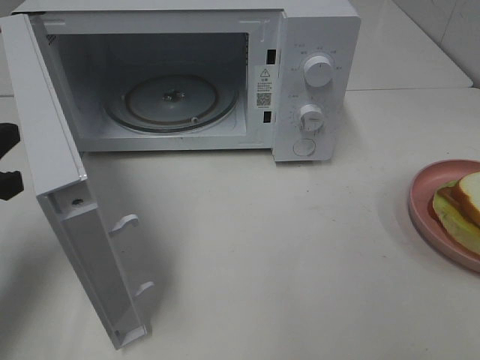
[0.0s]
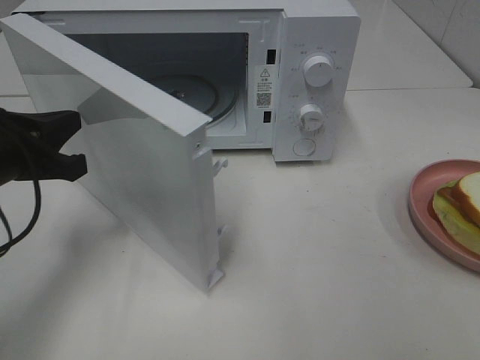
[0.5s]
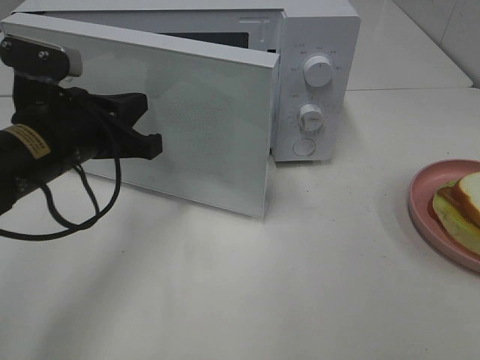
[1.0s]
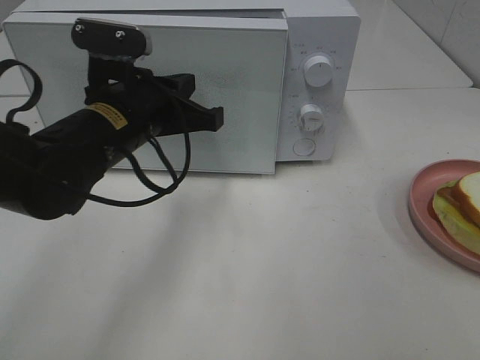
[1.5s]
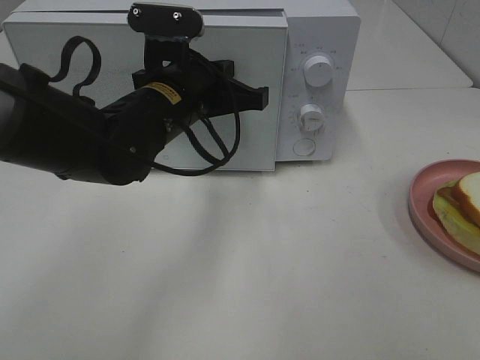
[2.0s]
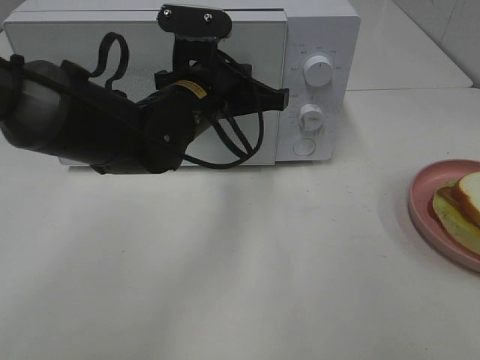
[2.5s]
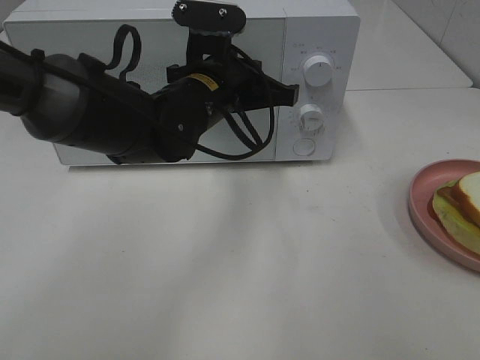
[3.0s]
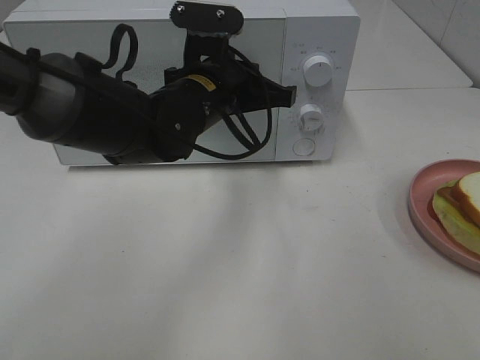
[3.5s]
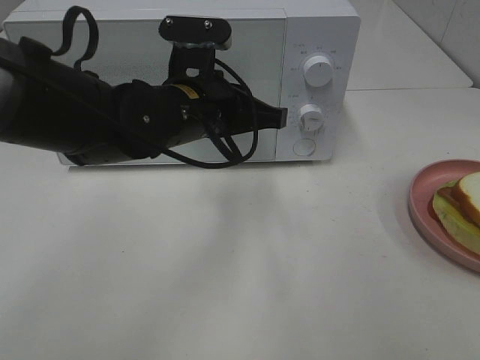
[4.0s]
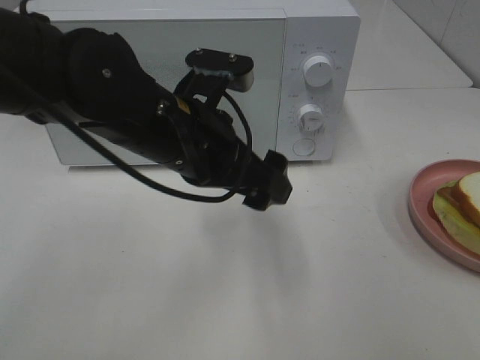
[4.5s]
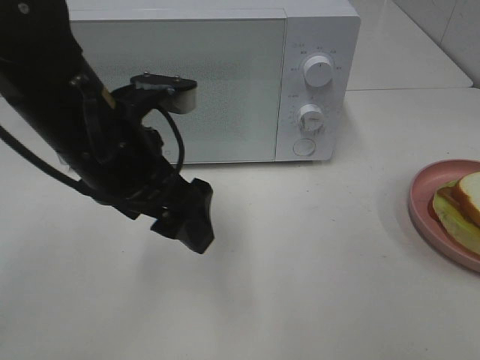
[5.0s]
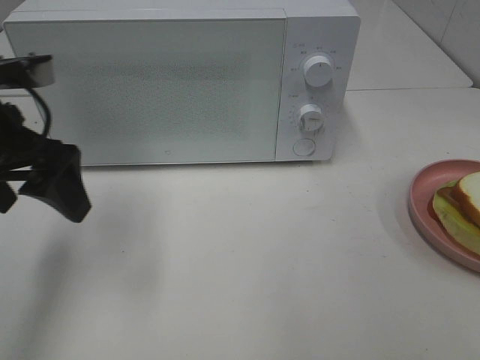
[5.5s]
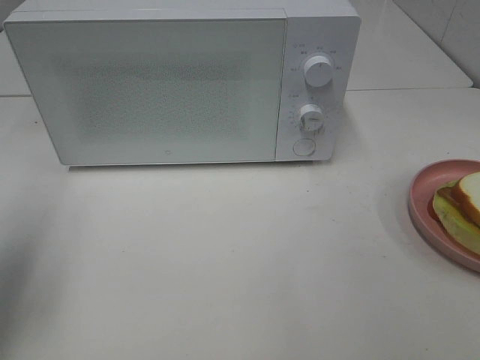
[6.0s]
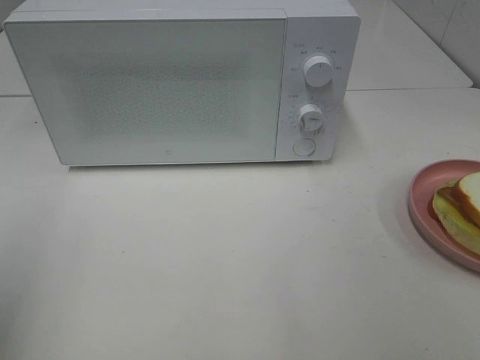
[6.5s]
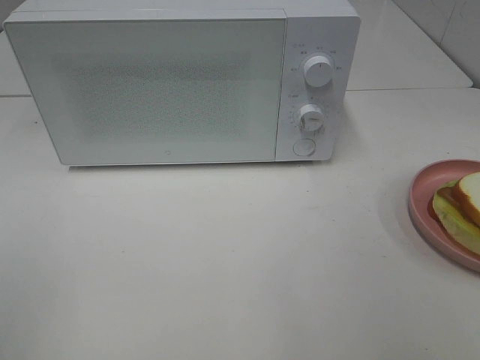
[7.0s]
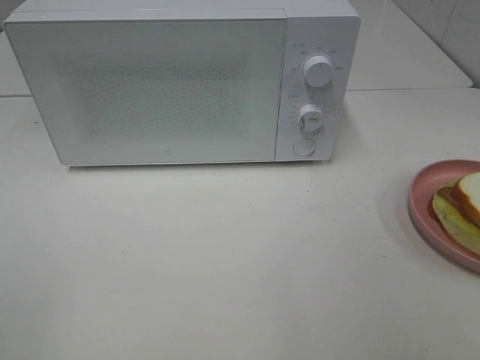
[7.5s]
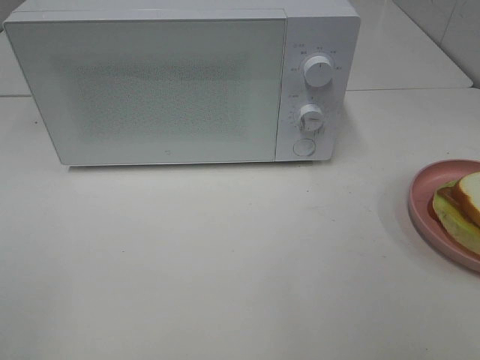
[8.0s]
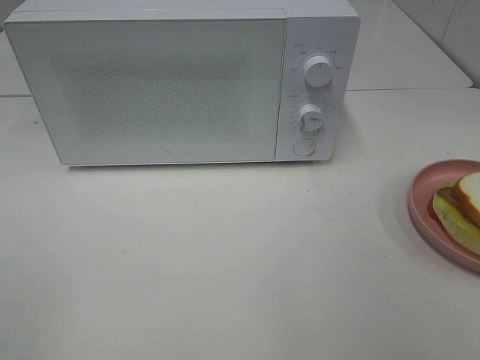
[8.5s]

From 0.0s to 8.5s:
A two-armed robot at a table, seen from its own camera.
Task of the whole recording: Heat Sandwich.
Step, from 0.0s to 3.5s: Left hand: close the microwave door.
From 0.0s to 2.0s: The left gripper is displaced to the right and forward by some 25 cm.
From 2.0s to 4.0s: The grippers stay close to where they were, moving slightly.
From 4.0s to 6.5s: The left gripper travels to the left and backward by about 35 cm, and opens up.

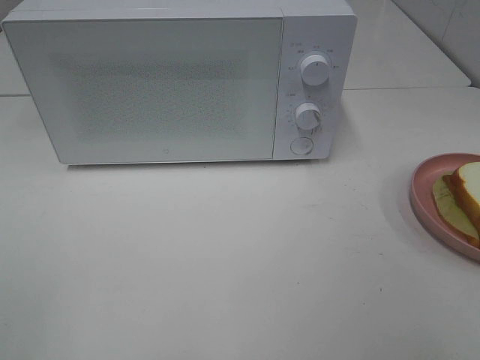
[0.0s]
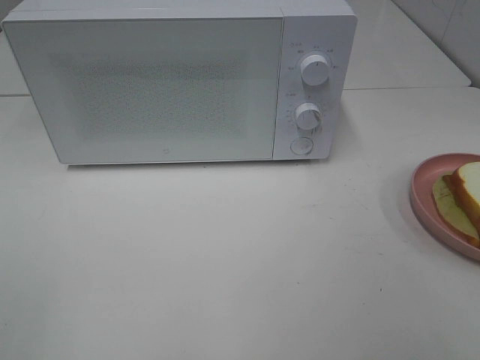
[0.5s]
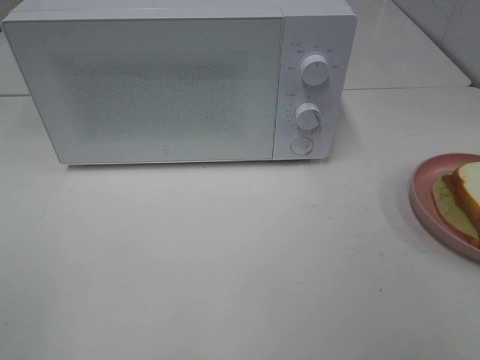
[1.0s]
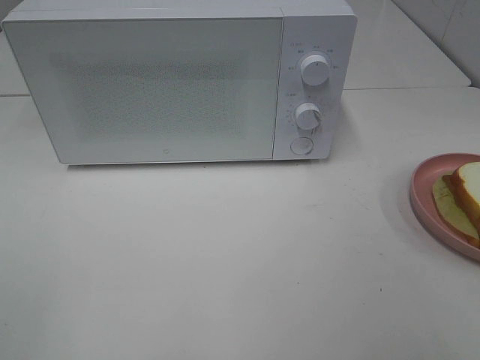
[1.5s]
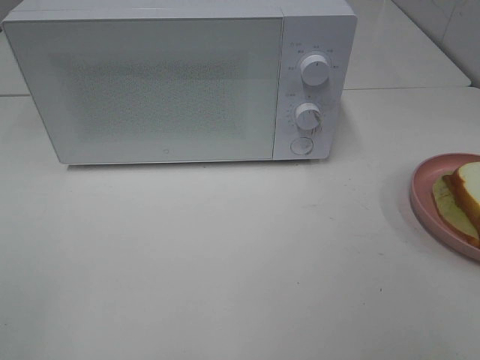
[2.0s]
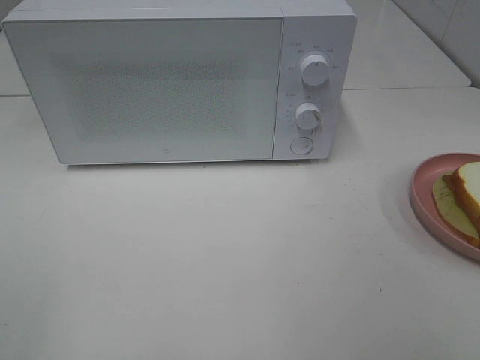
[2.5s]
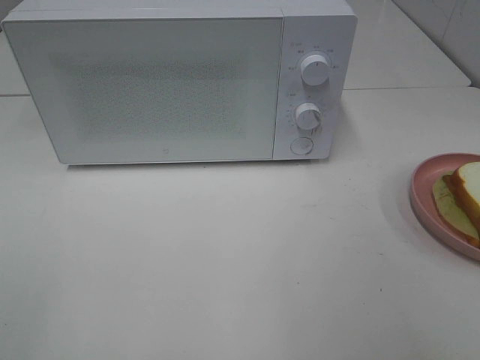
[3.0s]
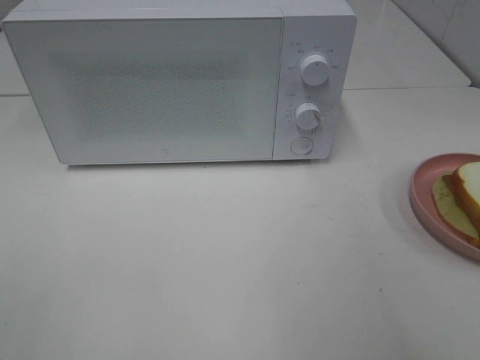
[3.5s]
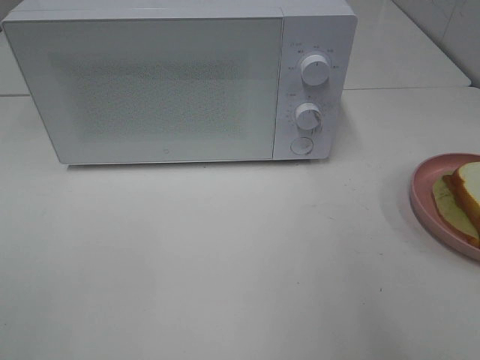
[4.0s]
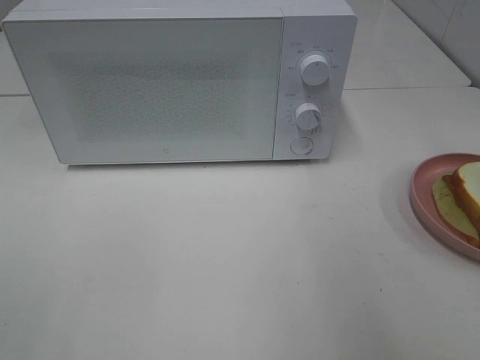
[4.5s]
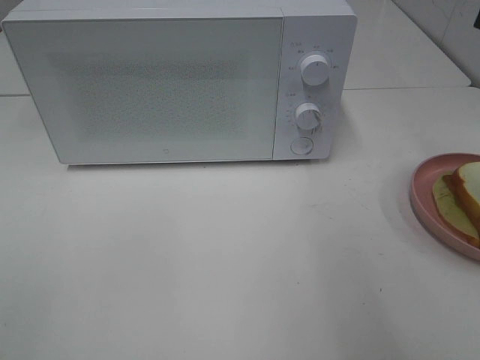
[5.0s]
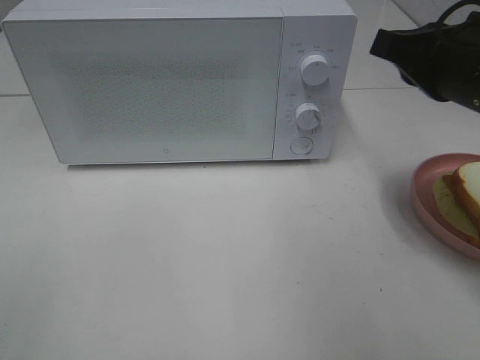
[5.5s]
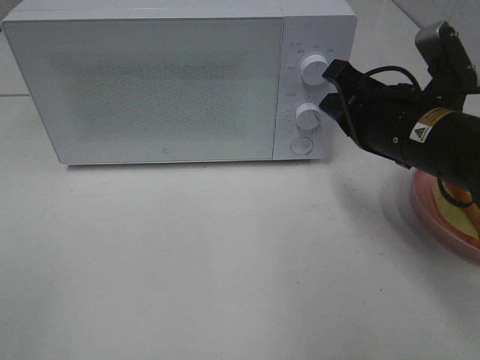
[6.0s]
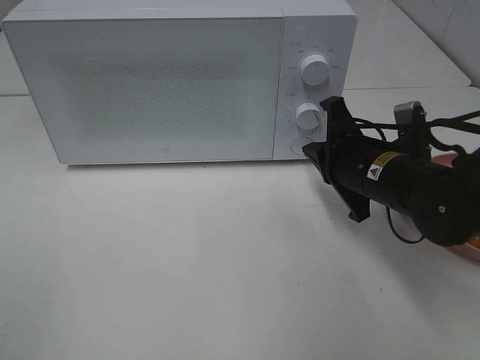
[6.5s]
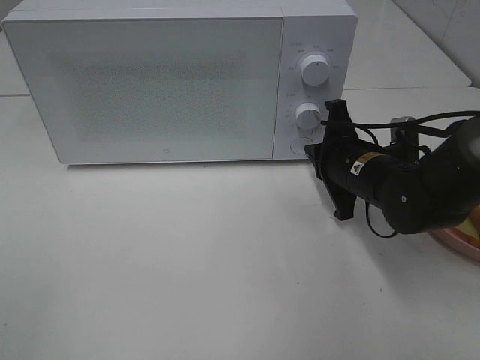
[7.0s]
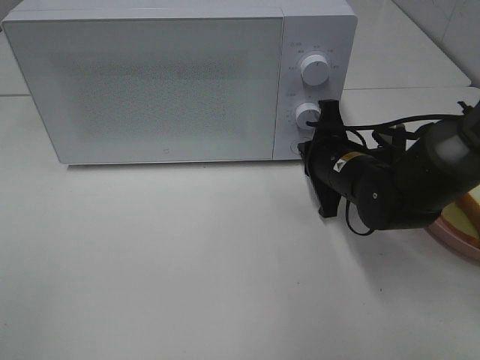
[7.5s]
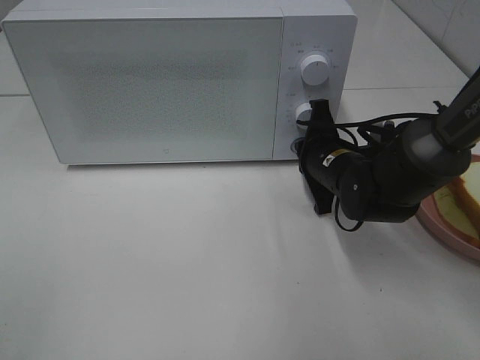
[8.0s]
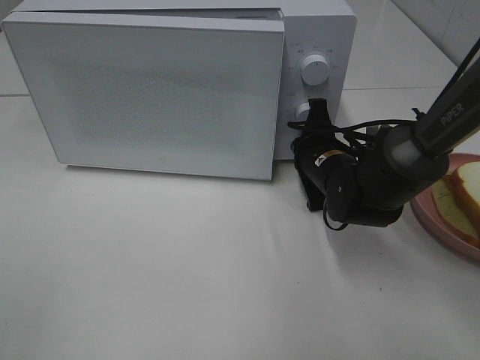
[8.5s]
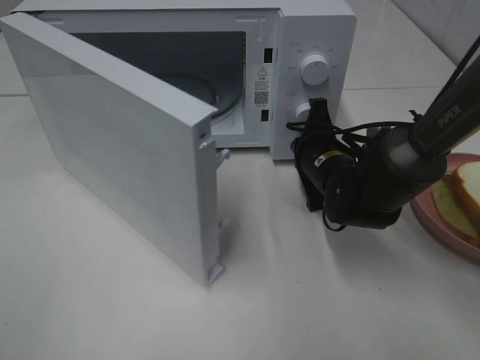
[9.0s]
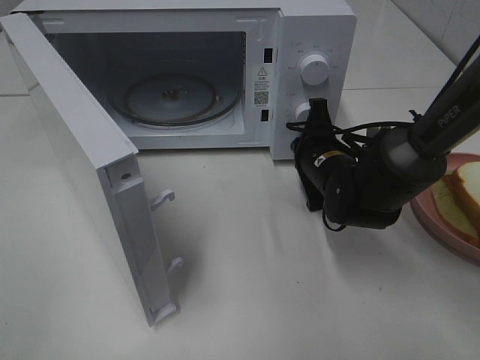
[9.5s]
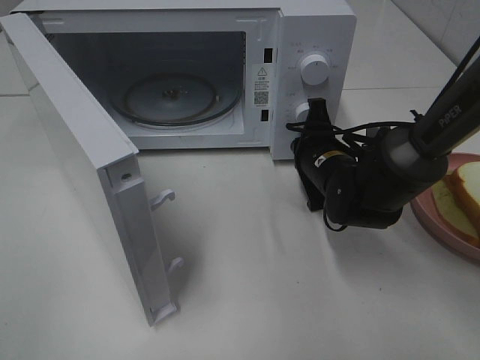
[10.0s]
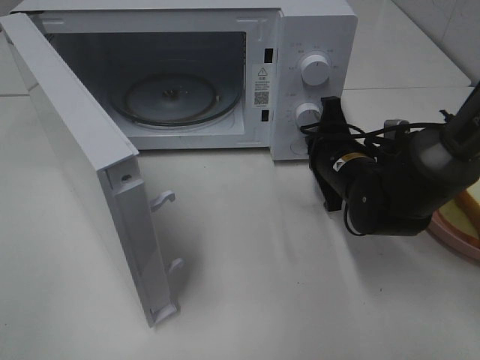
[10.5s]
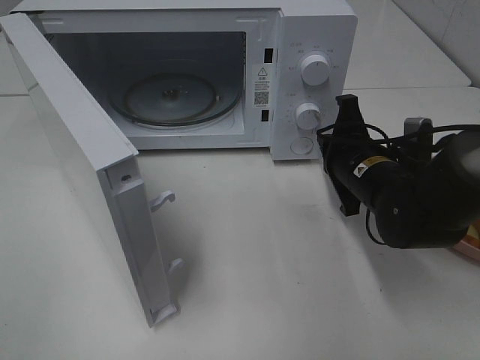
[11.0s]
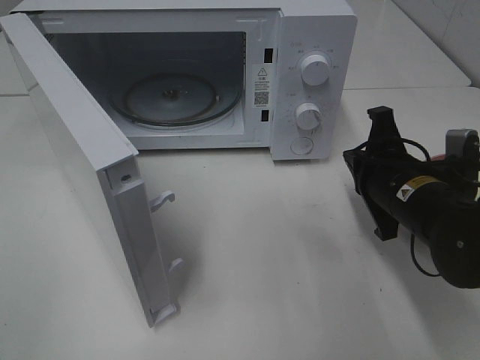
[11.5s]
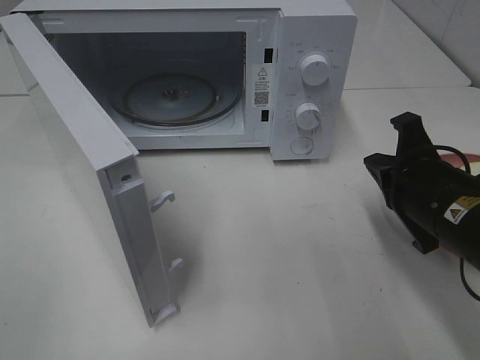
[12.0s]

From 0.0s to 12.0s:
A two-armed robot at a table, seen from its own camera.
Task of the whole recording: Heat Sandwich.
Step, from 0.0s to 10.5s: Right hand: press the switch.
From 0.0s to 2.0s: Both grippers stay put.
From 4.0s to 6.0s: The right gripper heads downward, forward and to the left, covering about 25 cm, and closes.
From 6.0s to 8.0s: The right gripper heads downward and forward, covering roughly 15 cm.
From 10.0s to 12.0s: The right gripper heads backward, to the right and upward, covering about 15 cm.

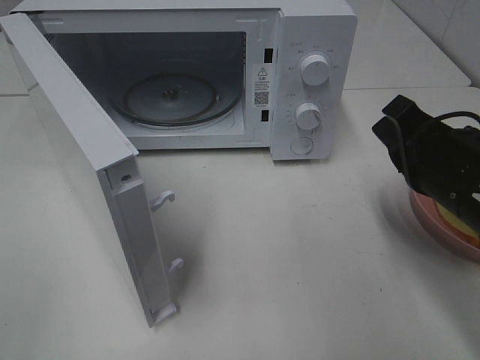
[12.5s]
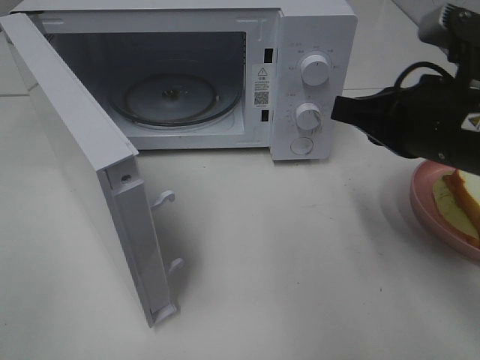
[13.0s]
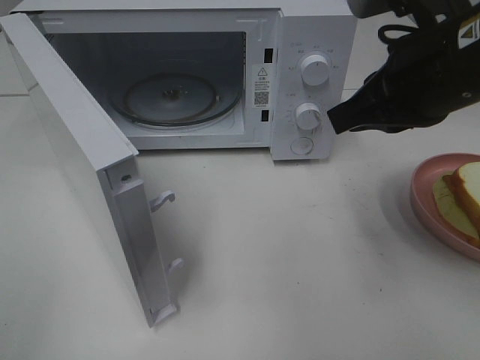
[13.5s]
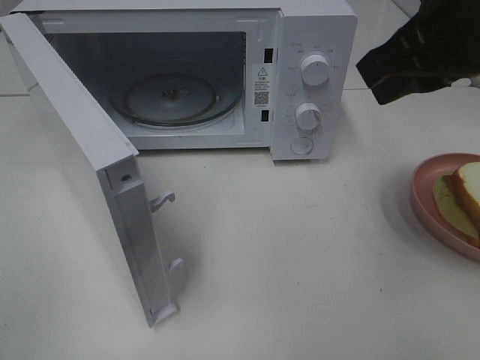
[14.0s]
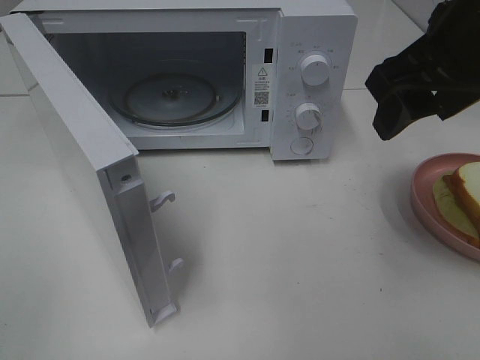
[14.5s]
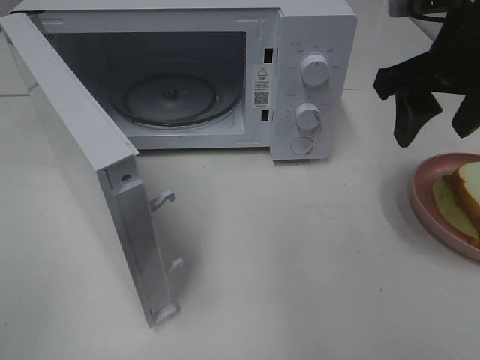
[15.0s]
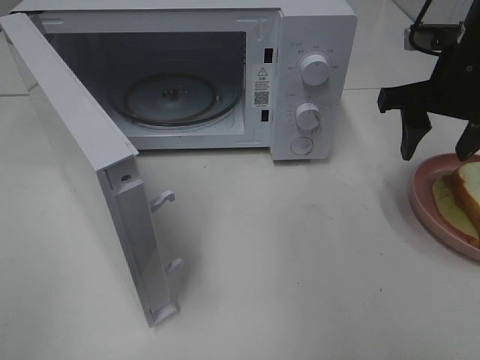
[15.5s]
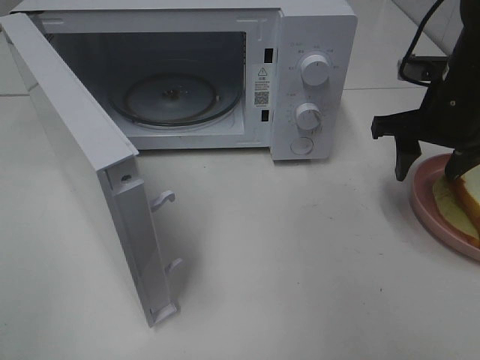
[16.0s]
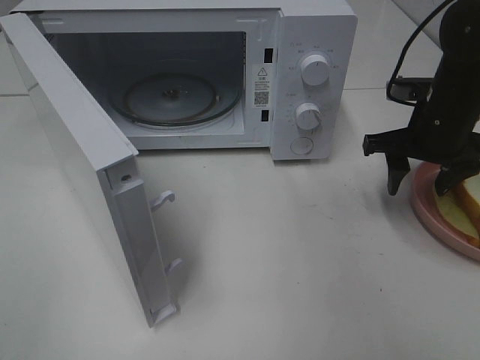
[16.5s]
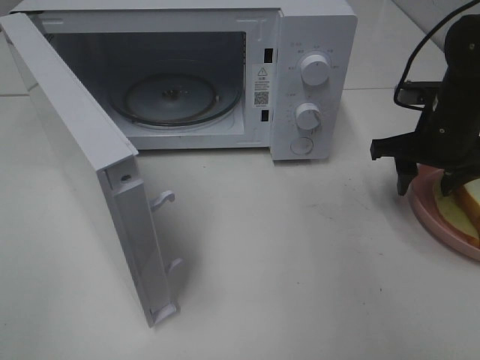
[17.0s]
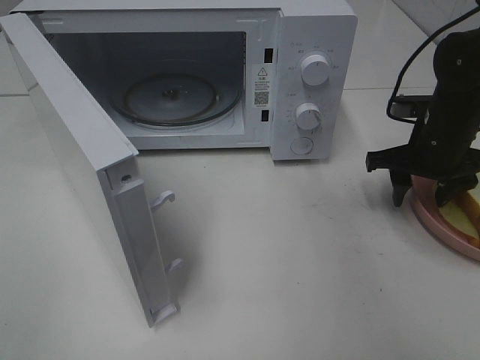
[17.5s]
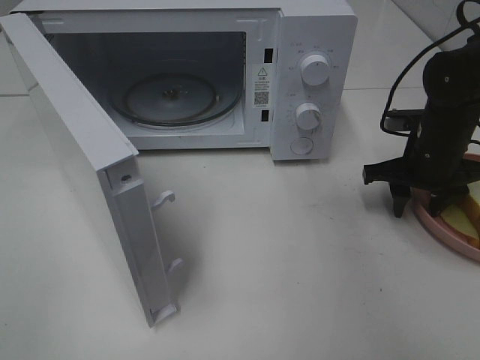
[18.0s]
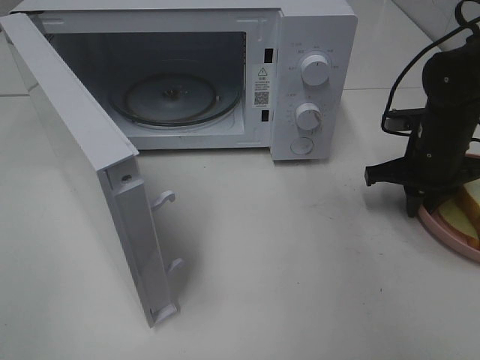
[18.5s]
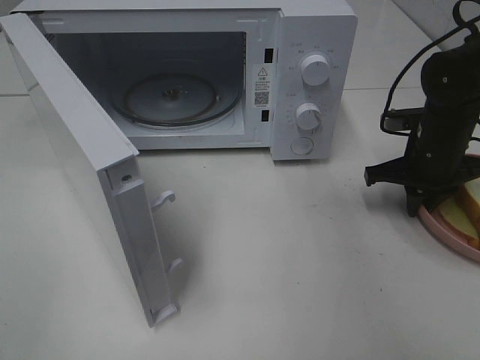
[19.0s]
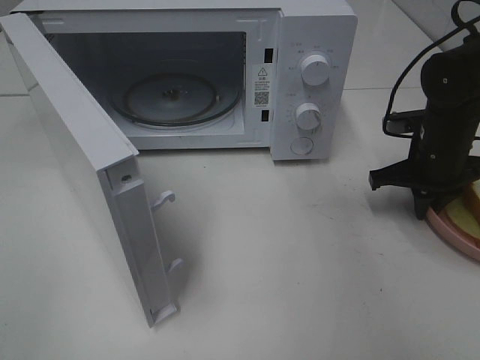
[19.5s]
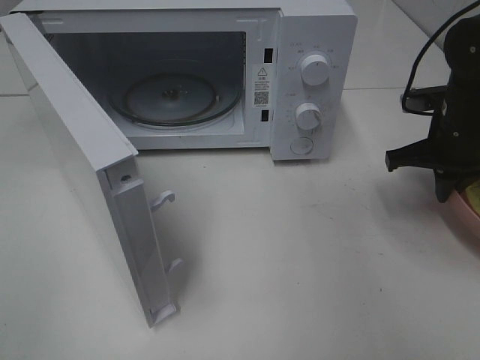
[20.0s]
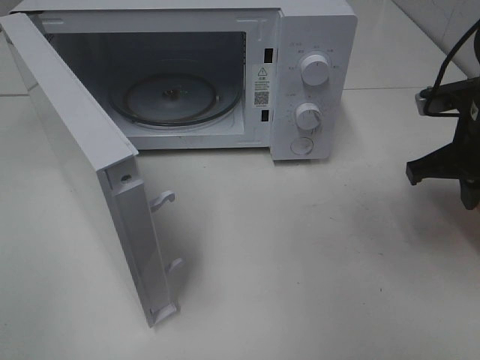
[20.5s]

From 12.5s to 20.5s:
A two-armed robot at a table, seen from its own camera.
Task of the whole recording: Heat Sandwich.
Step, from 12.5s to 19.0s: Right hand: grab the plate with the sandwich.
From 12.5s to 14.5s: The right gripper heads upward, covering some 15 cm, and opens up.
From 14.5s to 16.5s: The right gripper goes roughly 20 cm downward, forward and to the right.
From 16.5s to 18.5s: The right gripper shifts approximately 5 cm downward, and closes.
From 18.5s to 20.5s: The right gripper heads upward and backward, covering approximately 10 cm.
